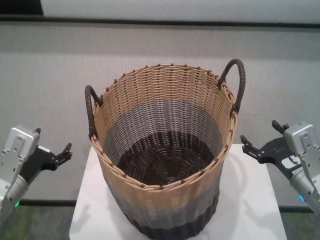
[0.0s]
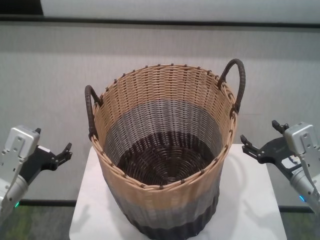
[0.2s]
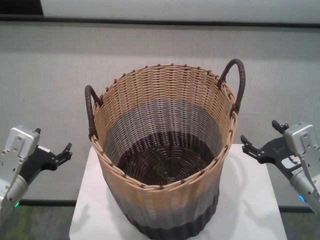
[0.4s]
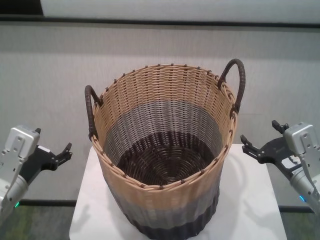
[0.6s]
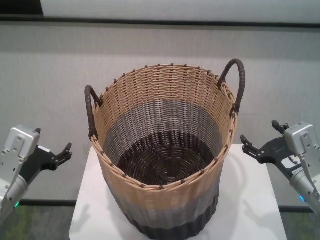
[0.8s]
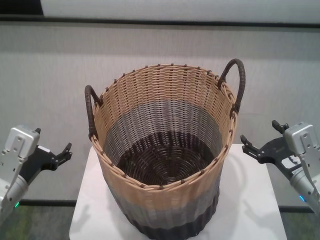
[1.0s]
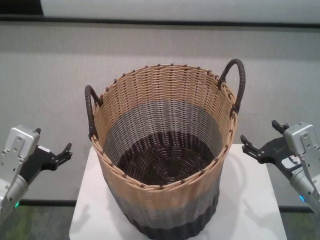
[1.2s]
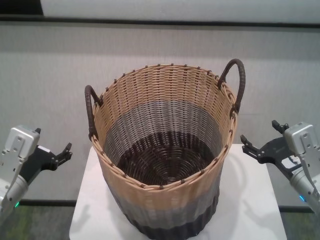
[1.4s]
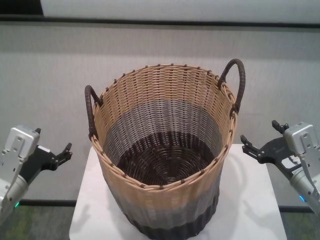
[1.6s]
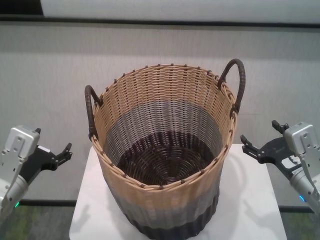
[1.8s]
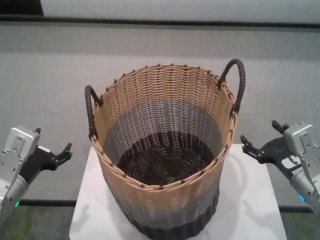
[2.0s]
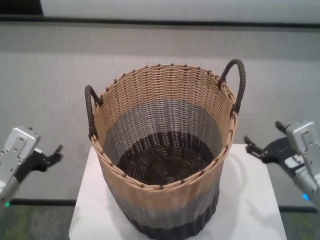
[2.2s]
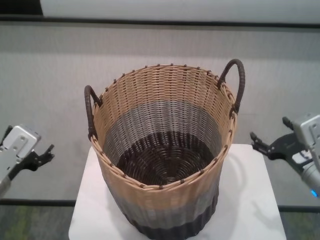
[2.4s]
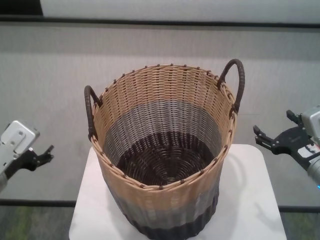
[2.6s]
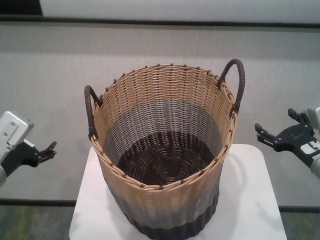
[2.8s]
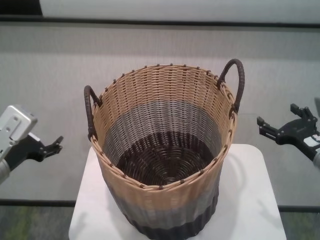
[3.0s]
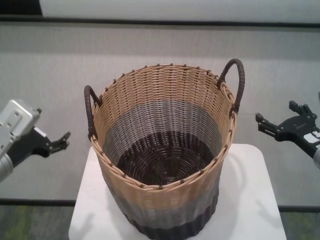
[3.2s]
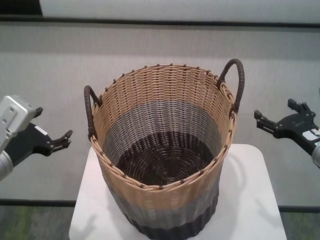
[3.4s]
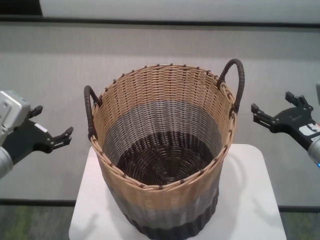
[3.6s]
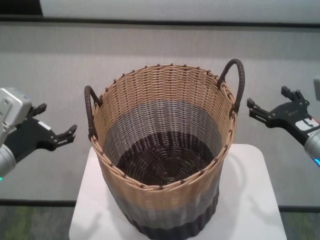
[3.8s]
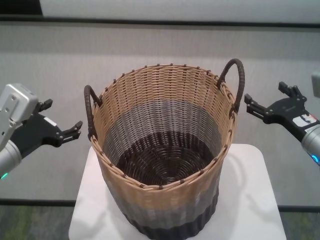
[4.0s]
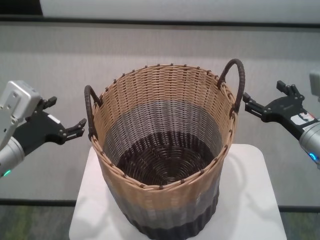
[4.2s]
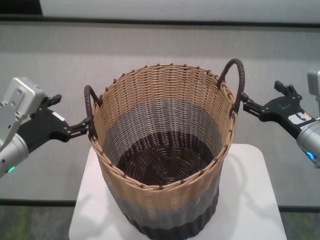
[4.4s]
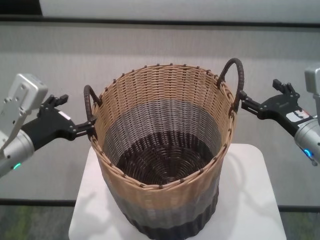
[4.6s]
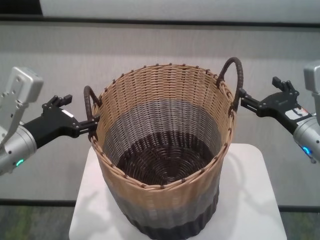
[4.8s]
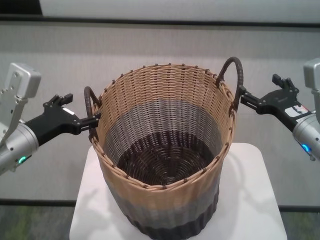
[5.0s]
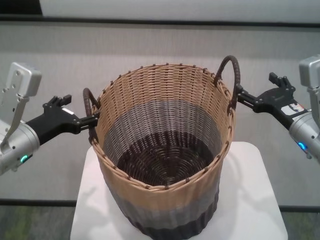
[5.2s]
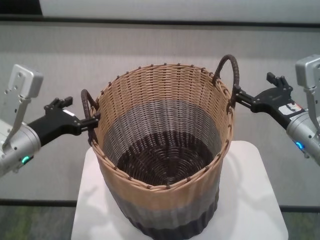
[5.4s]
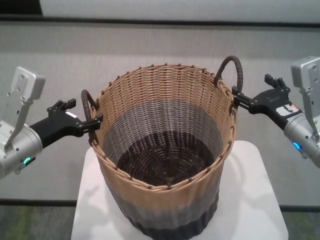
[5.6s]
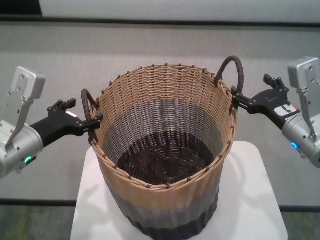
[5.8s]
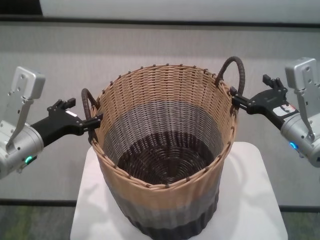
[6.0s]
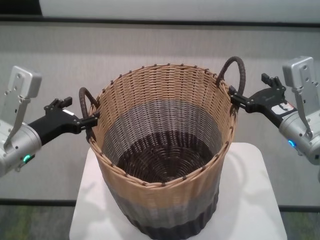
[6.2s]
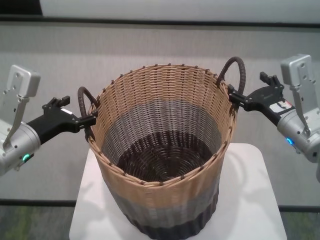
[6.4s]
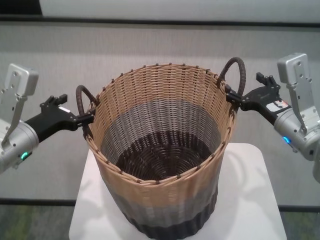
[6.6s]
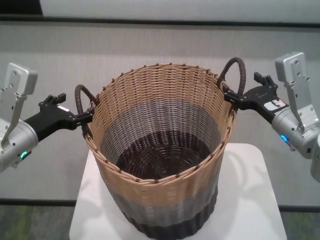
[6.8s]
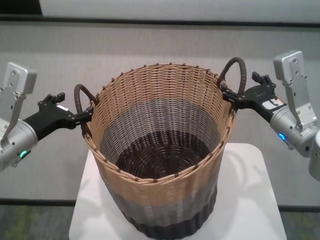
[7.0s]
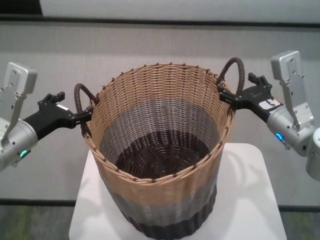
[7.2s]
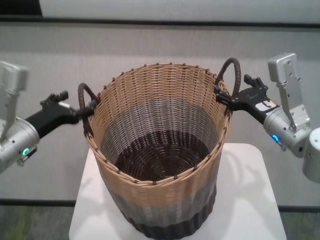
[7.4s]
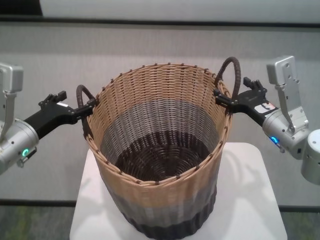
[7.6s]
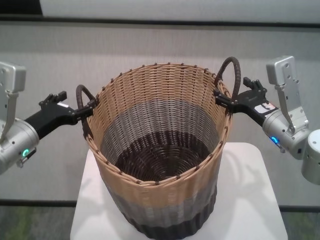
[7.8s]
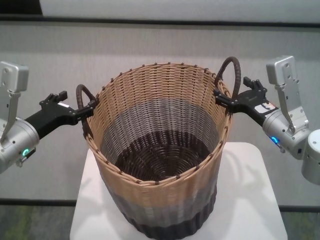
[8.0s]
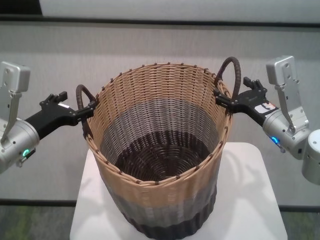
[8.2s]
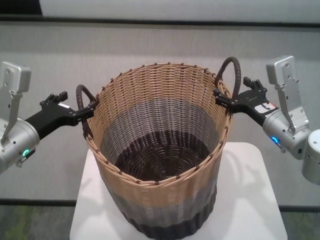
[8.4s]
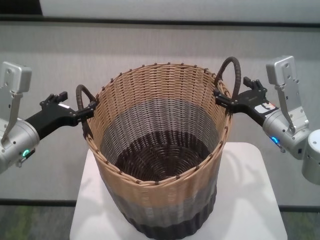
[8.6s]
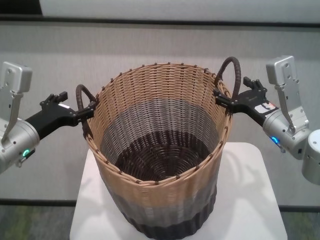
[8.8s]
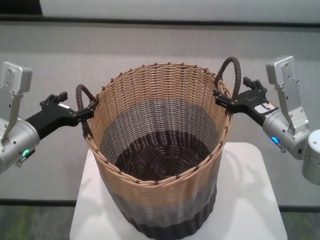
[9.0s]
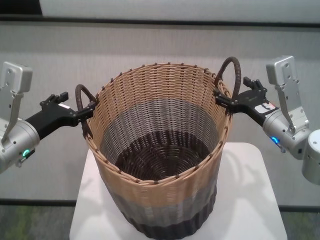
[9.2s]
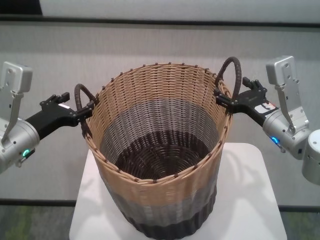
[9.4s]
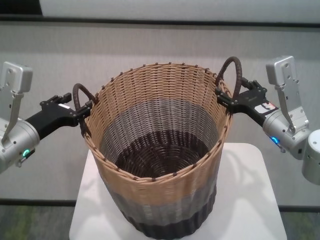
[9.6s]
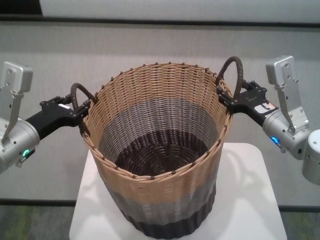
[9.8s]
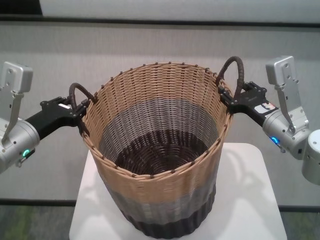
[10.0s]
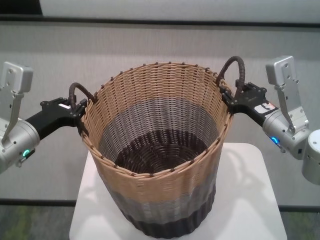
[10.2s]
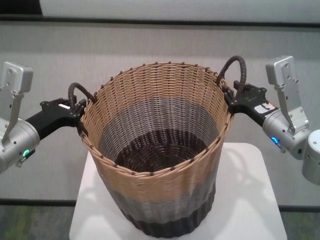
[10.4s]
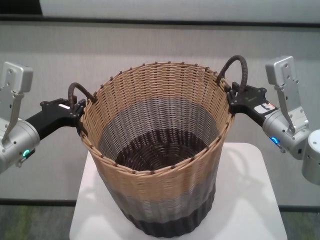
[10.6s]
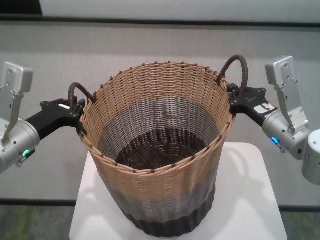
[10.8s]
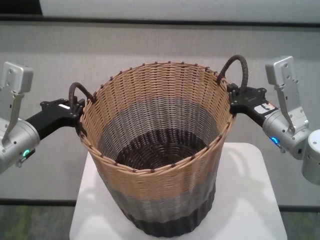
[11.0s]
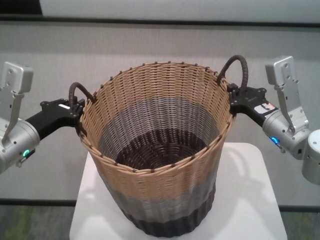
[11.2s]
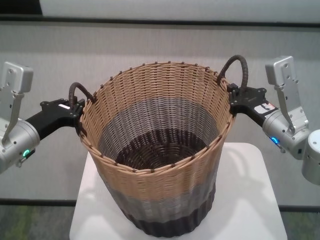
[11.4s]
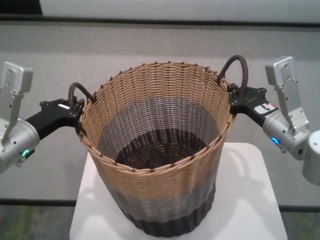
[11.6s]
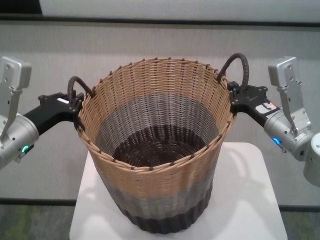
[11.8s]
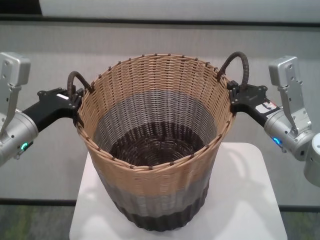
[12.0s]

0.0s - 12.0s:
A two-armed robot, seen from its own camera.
Task of the whole recording: carry the clothes basket in coordination with both hands.
Step, 0.0s - 10.8s: Grasp the basket with both grippers.

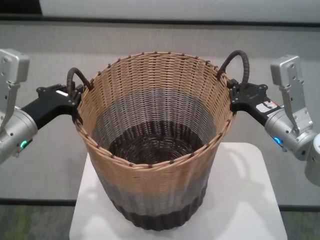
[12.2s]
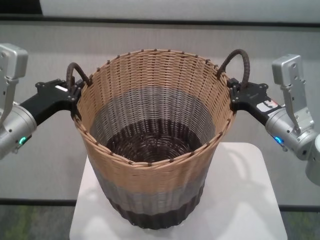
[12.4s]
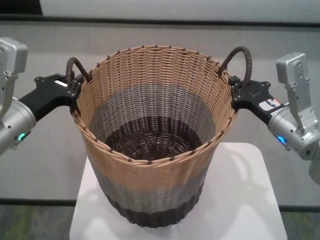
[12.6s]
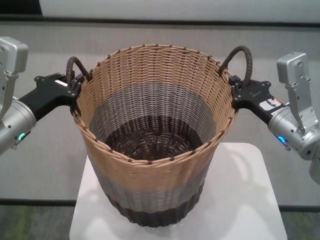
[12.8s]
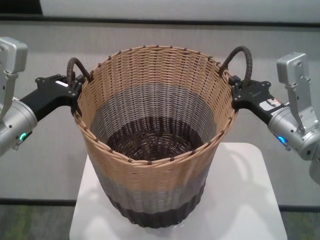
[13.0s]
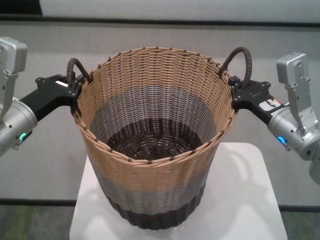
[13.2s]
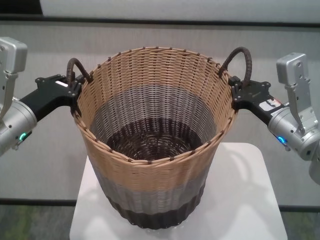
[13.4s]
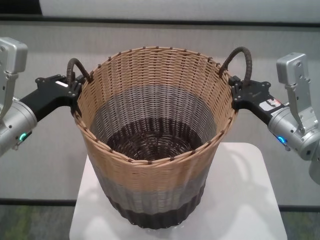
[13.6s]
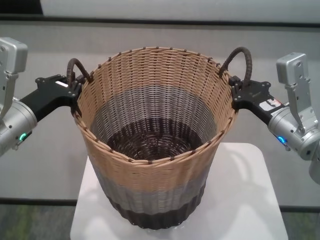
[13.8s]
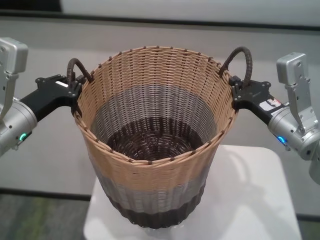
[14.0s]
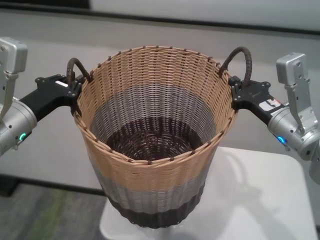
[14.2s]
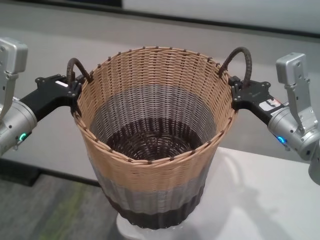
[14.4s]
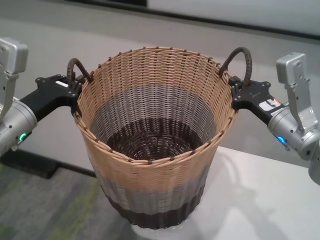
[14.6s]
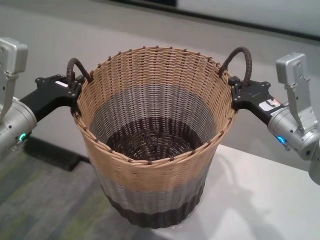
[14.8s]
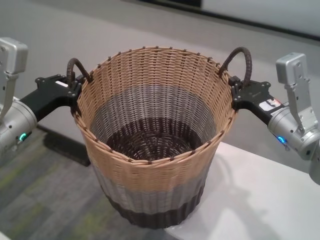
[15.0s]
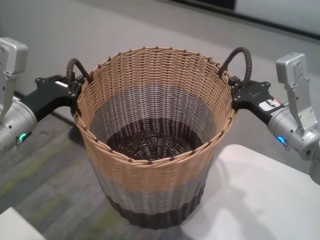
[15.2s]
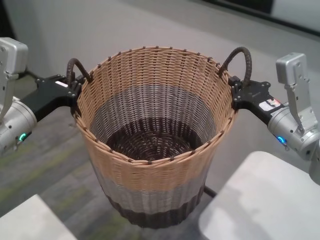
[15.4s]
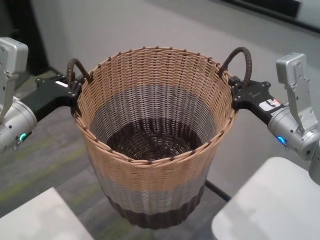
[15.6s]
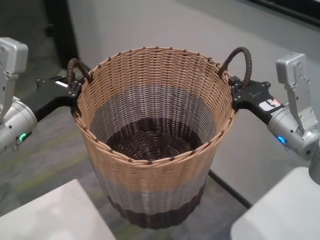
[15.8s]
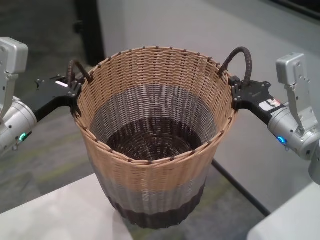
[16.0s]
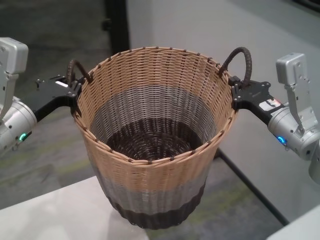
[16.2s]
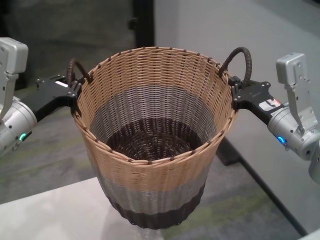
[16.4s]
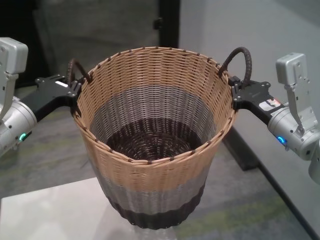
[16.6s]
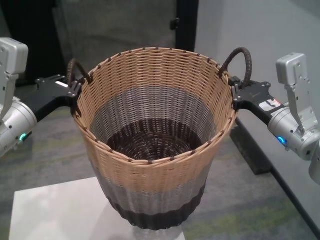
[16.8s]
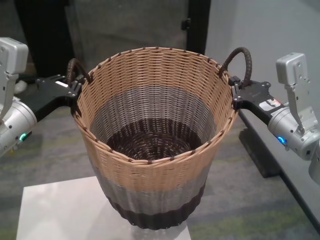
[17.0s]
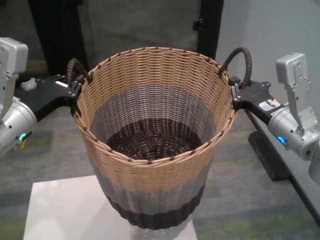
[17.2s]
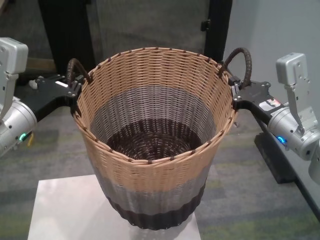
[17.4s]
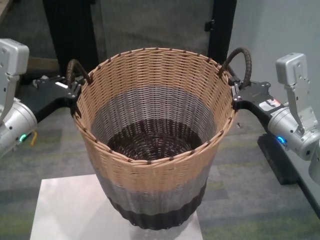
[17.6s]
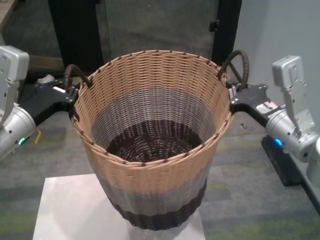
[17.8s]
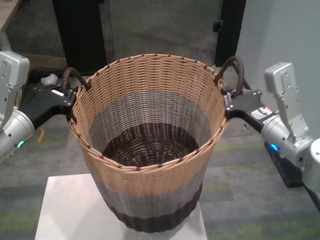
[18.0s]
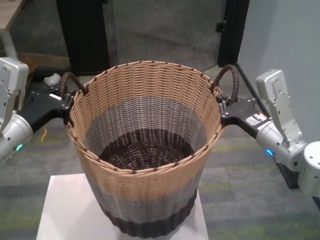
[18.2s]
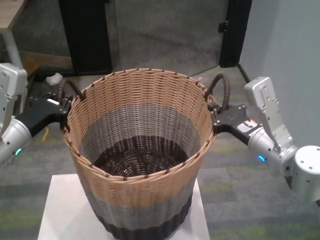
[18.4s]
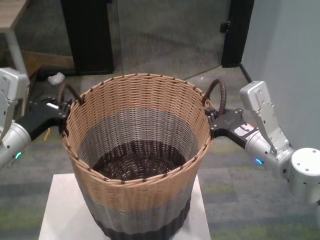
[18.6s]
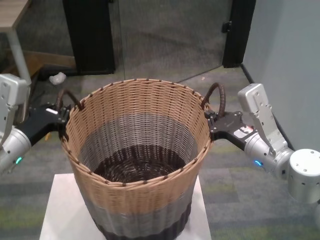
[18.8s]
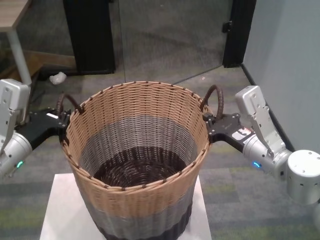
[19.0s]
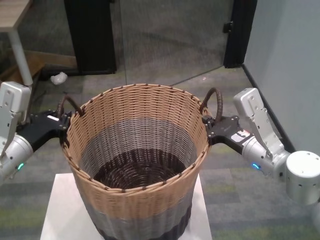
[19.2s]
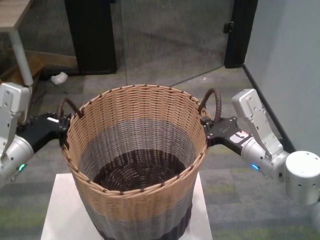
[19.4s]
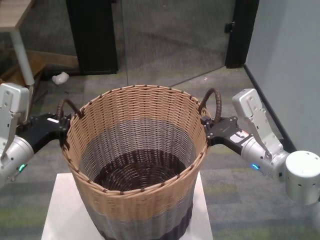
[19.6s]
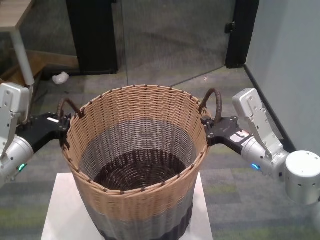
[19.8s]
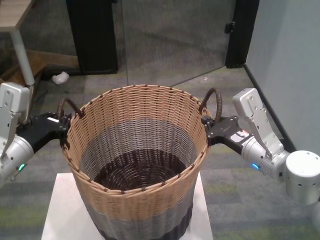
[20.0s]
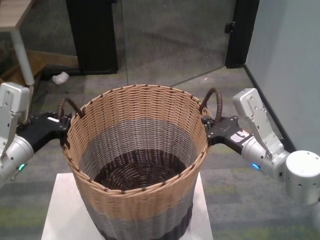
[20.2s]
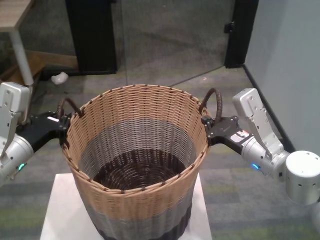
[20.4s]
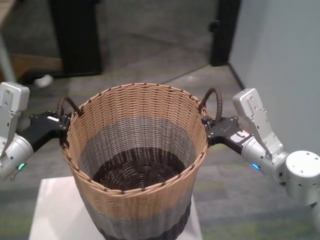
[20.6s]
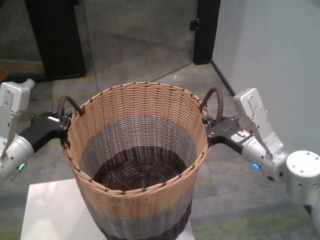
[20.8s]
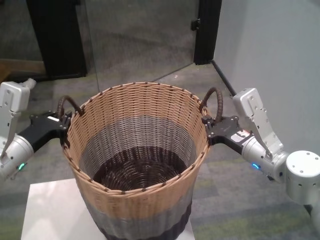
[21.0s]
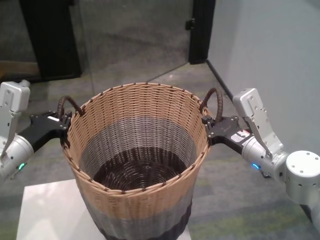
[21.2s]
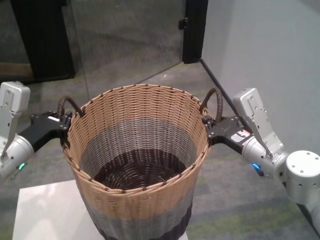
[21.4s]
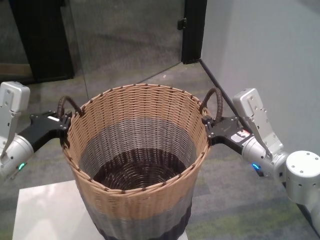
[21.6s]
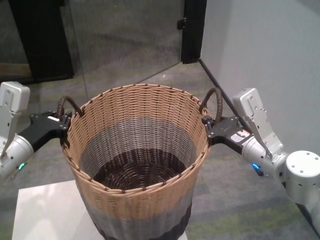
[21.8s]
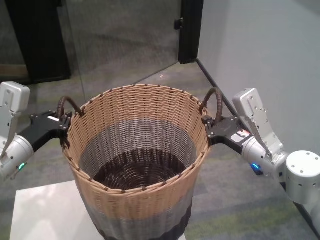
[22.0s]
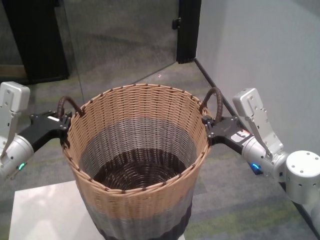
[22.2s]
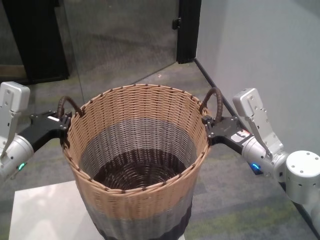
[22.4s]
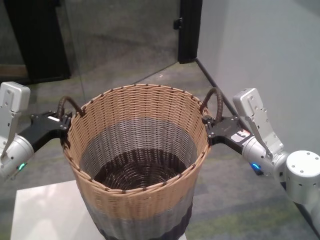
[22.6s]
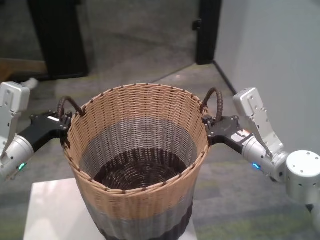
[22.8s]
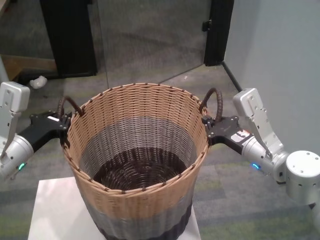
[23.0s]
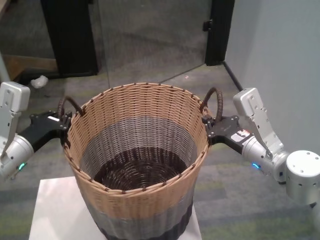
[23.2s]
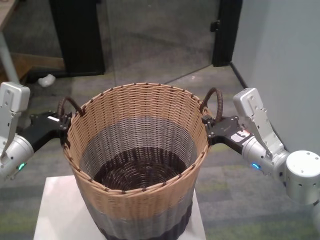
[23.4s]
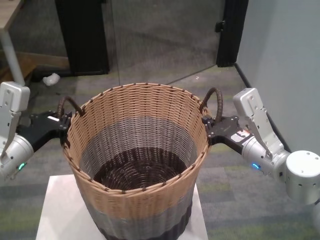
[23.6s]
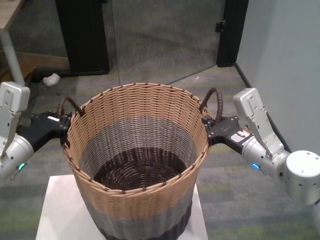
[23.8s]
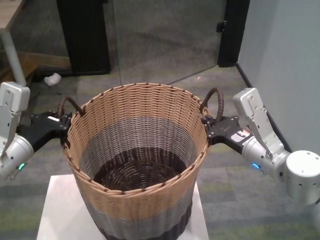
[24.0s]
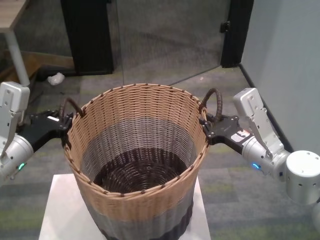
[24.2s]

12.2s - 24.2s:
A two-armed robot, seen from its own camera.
Task of the whole recording: carry the clothes basket in coordination with both hands.
Step, 12.2s - 17.6s: Move the basket above the other table.
